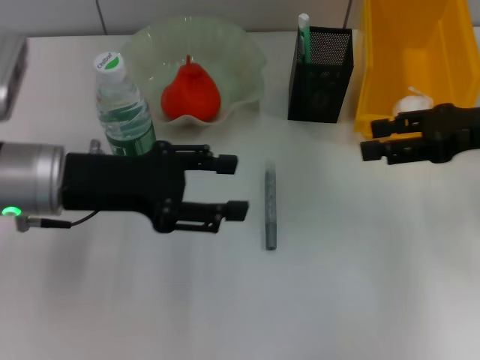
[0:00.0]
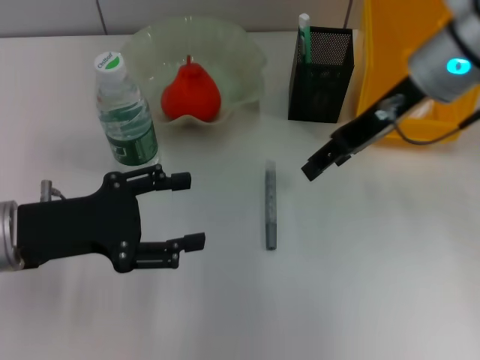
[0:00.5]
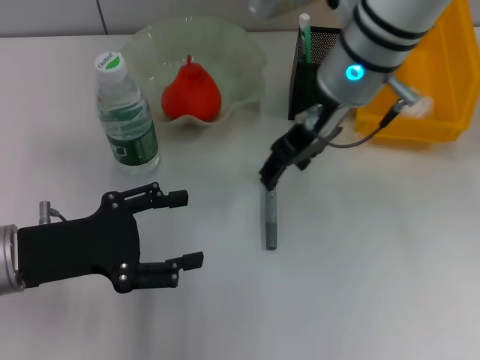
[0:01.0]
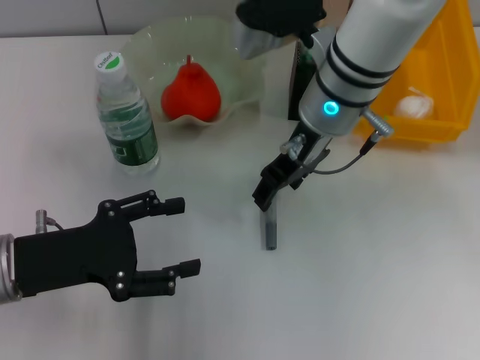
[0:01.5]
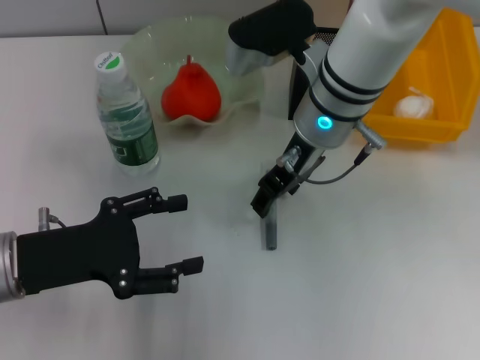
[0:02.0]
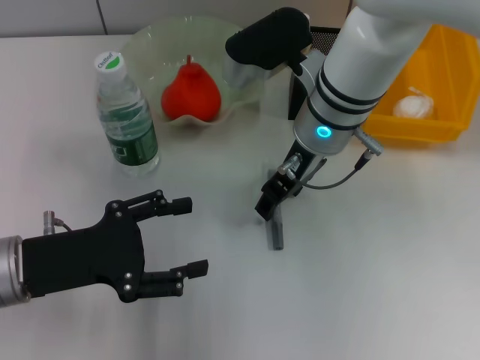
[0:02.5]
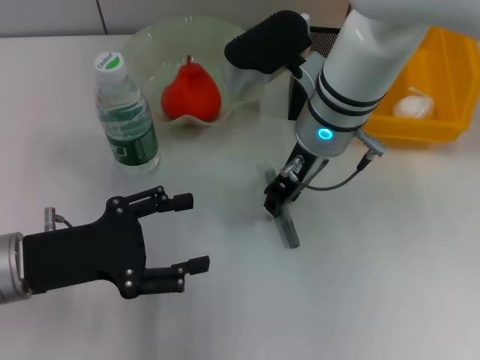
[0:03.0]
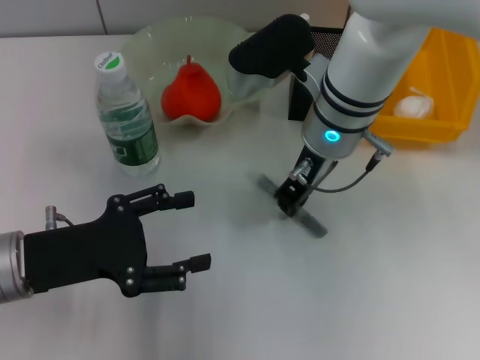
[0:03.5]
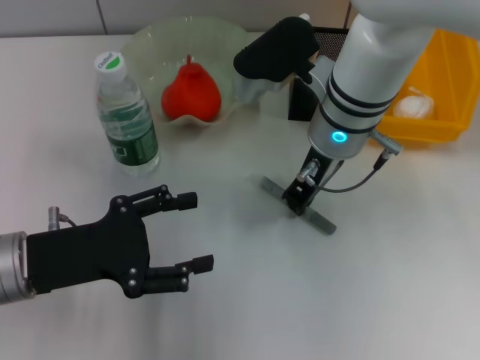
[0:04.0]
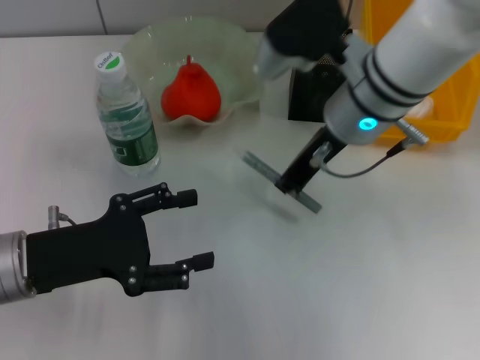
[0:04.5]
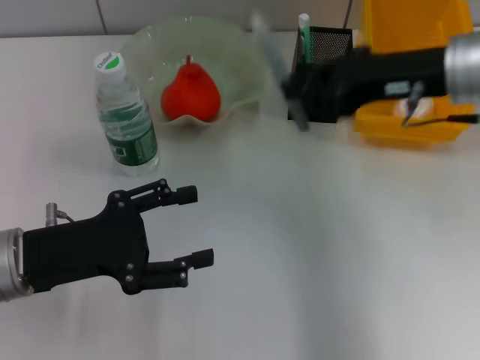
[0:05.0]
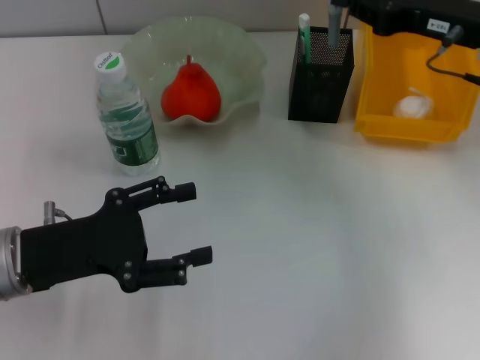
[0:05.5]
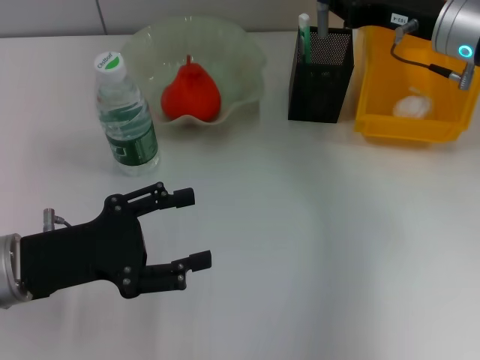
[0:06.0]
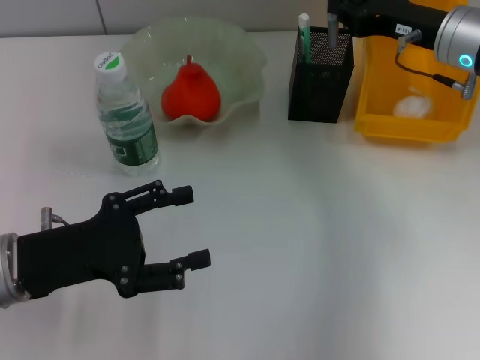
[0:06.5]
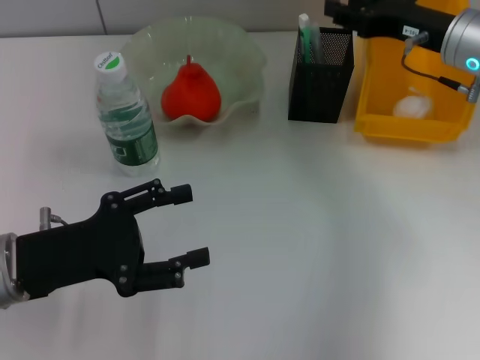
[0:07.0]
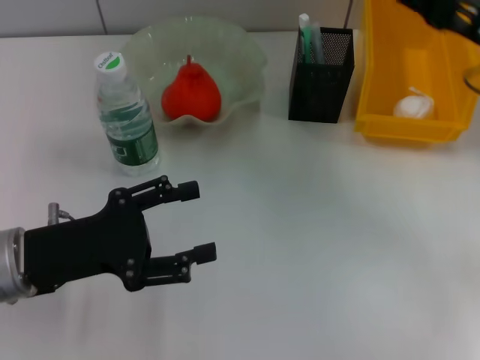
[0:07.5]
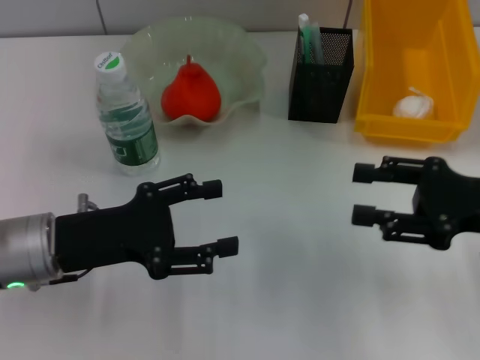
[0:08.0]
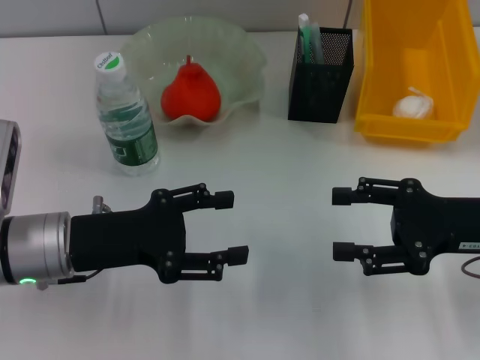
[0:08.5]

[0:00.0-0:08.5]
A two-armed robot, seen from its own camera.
Step, 0:00.0 to 0:03.5: Grab the gray glue with the right hand.
Step, 0:04.0 to 0:06.5: Place the gray glue into the pen holder with the right hand.
0:00.0 to 0:02.0: The right gripper is displaced to the left by some 25 cm. The left gripper heads backward and downward, covering about 10 cm, and opens.
0:02.0 to 0:04.0: The right gripper closes its fingers.
0:04.0 to 0:06.5: The right gripper is displaced to the right by about 15 cm.
0:06.5 to 0:08.5: The right gripper is displaced backward by approximately 15 cm, and opens.

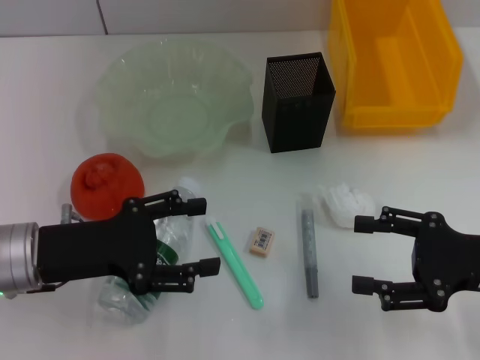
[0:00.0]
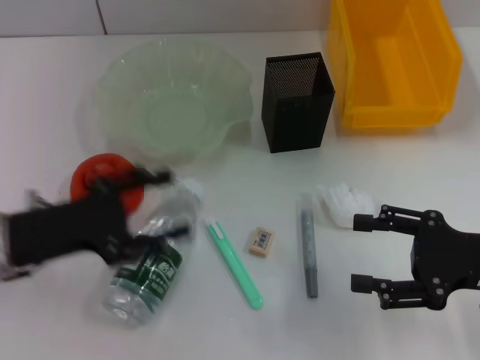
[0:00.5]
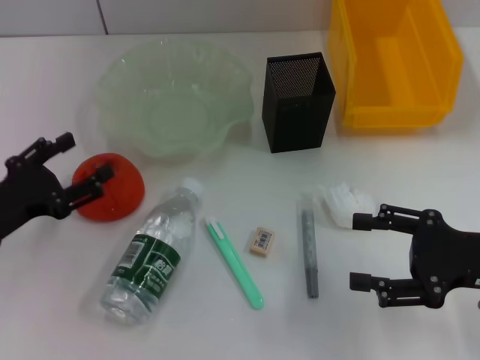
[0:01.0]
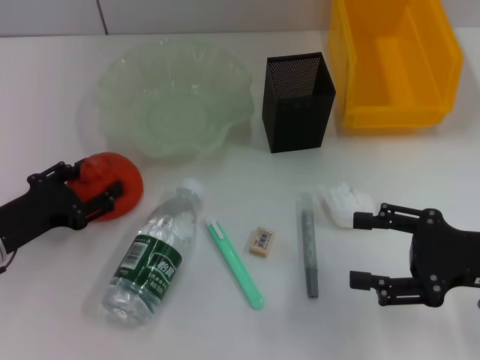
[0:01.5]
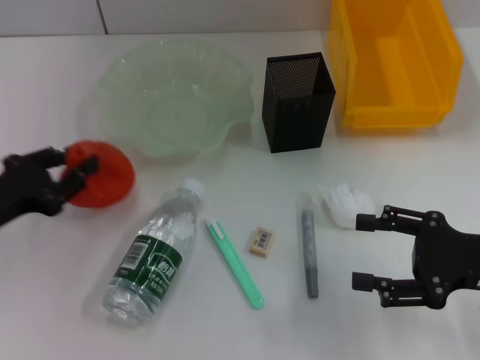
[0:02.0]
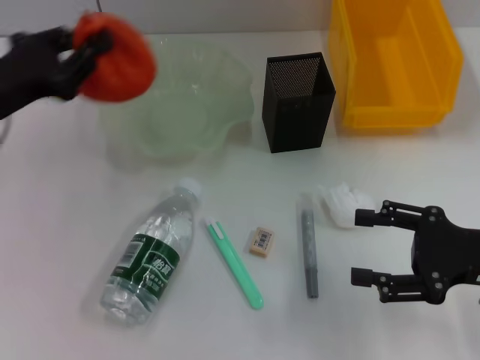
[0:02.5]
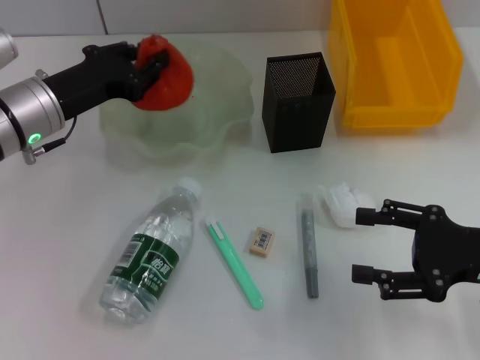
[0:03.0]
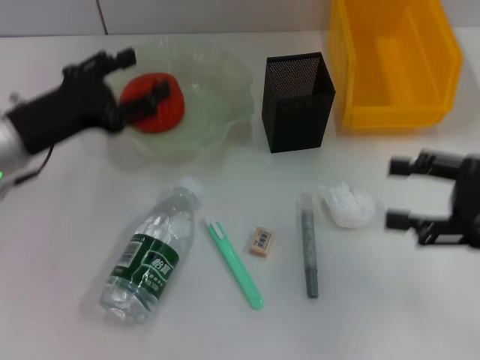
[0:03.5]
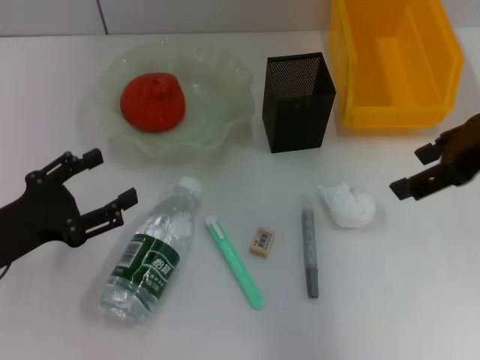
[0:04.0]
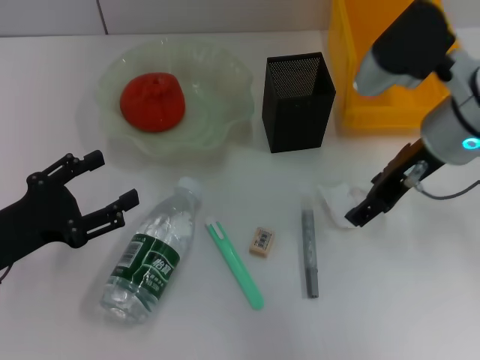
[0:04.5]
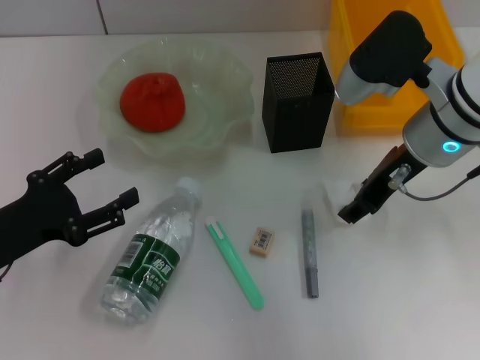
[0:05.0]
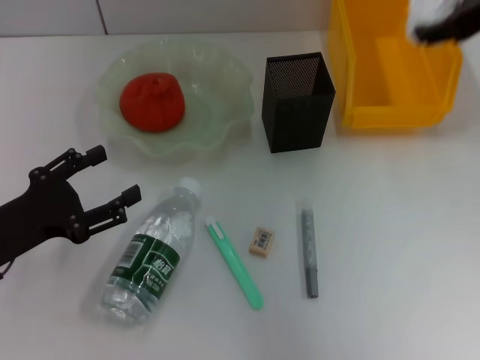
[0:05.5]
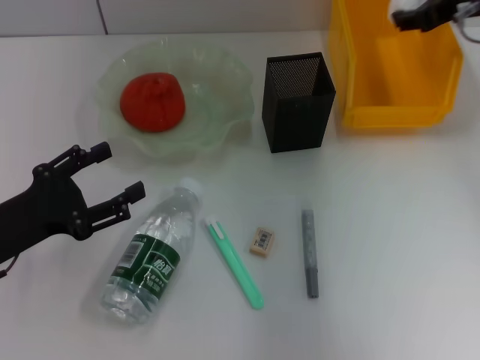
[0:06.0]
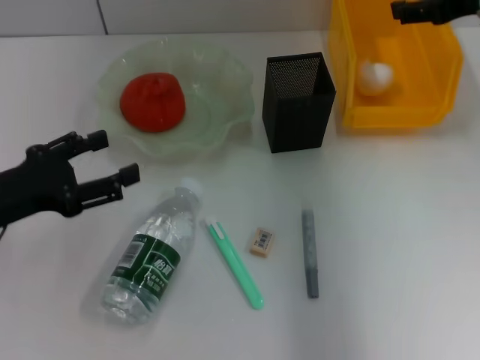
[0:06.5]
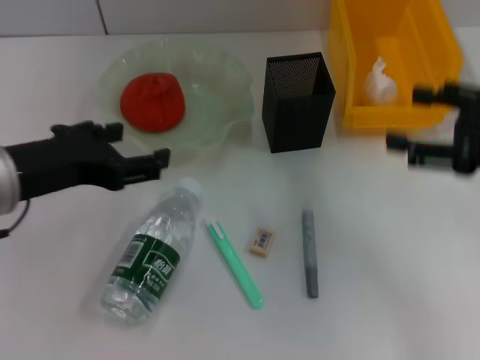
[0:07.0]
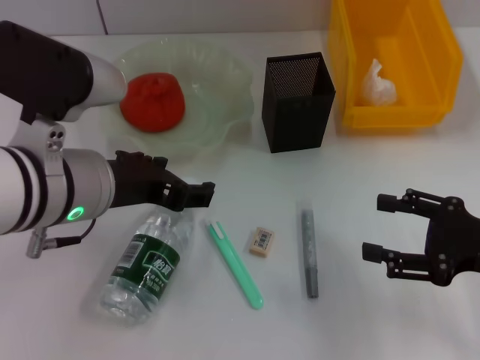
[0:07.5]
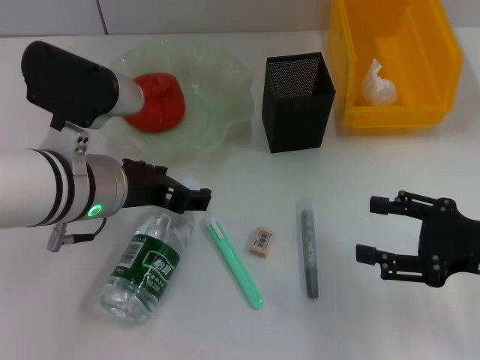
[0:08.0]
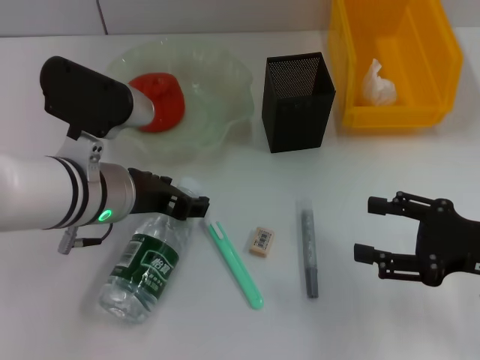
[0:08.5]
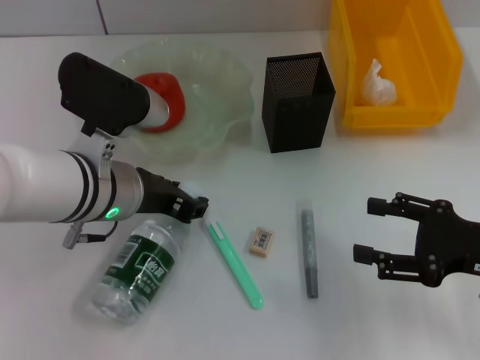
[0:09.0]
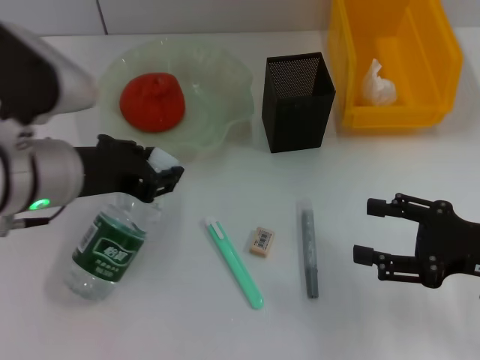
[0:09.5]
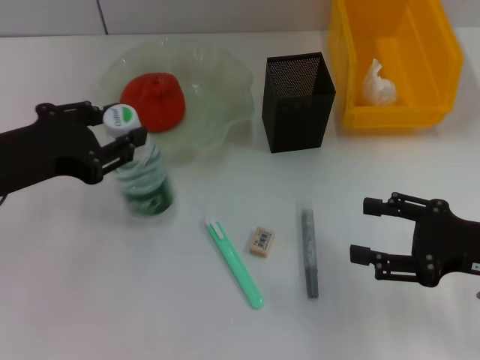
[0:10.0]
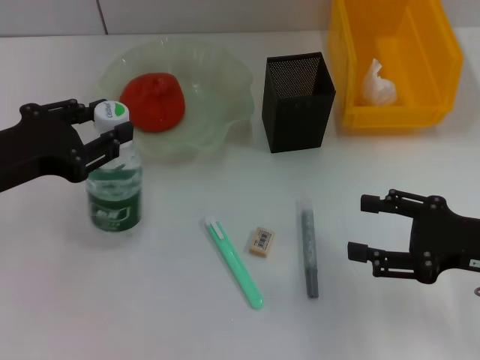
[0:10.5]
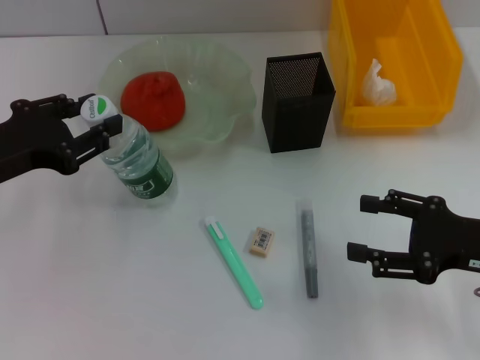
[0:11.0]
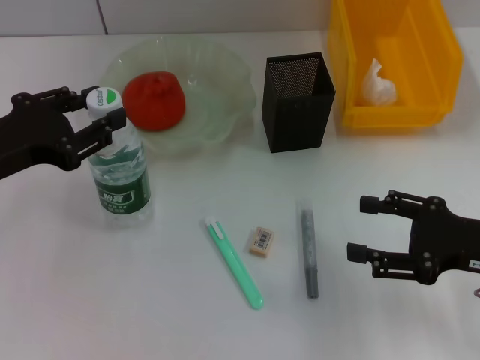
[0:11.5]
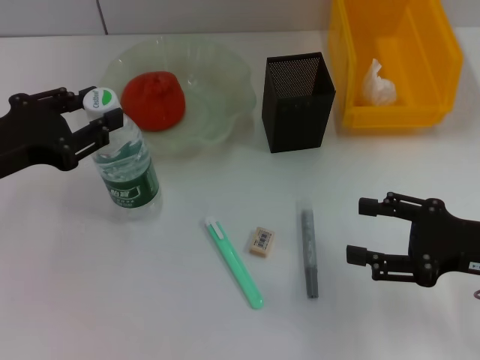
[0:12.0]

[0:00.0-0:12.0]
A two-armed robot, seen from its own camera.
Step, 0:00.0 to 0:01.5: Grab the orange with the left hand.
Step, 0:02.0 to 0:03.0: Place the orange into the fruit bowl with the left hand.
Step, 0:03.5 to 0:04.5: Grab the paper ball with the right hand.
Step, 0:05.0 to 0:06.0: Place the paper ball into the trash can with the right hand.
Step, 0:06.5 to 0:08.5: Grab the water bottle with the left hand.
0:00.0 to 0:02.0: The left gripper heads to the left, covering about 5 cm, and closes.
0:02.0 to 0:04.0: The right gripper is displaced upward and forward by some 20 cm. The left gripper moves approximately 10 cm forward and comes back, and opens.
0:04.0 to 0:06.0: The right gripper goes up and down, roughly 10 cm each way, reversing 2 times.
0:06.0 to 0:08.0: The right gripper heads backward and downward, covering about 25 cm, while the left gripper travels to the right and upward by approximately 15 cm.
0:08.0 to 0:10.0: The left gripper is displaced to the left by roughly 10 cm, and closes its fingers.
0:10.0 to 0:12.0: The grippers make only small movements.

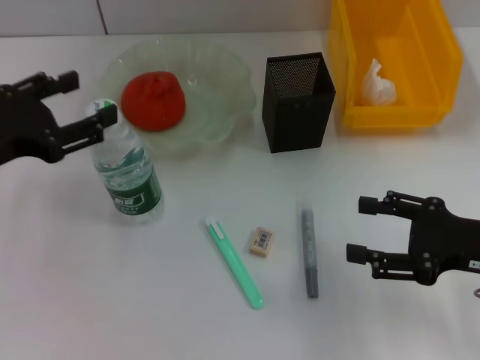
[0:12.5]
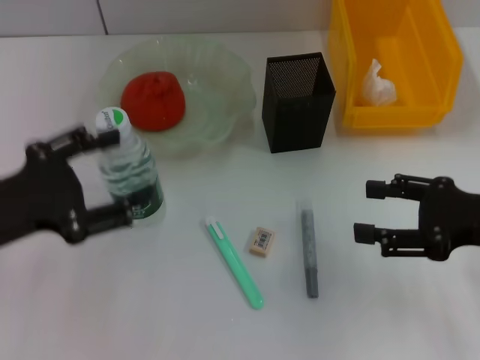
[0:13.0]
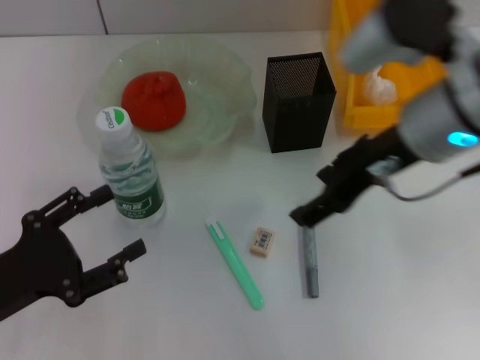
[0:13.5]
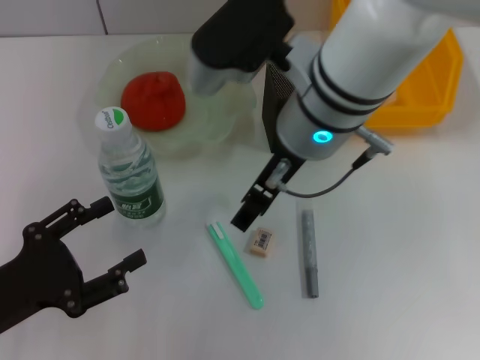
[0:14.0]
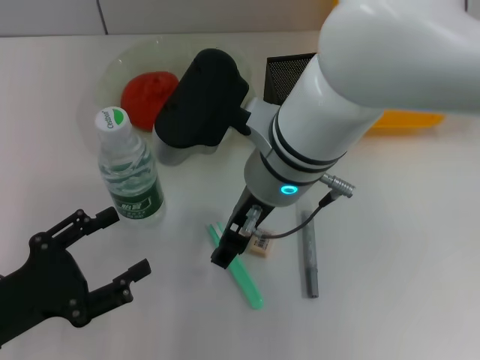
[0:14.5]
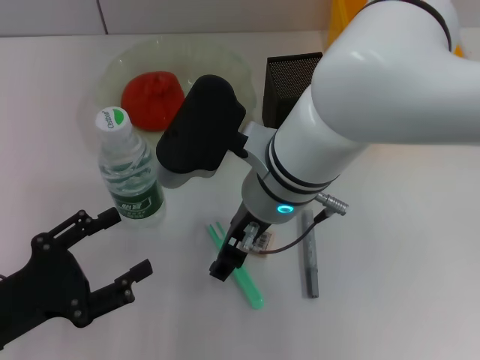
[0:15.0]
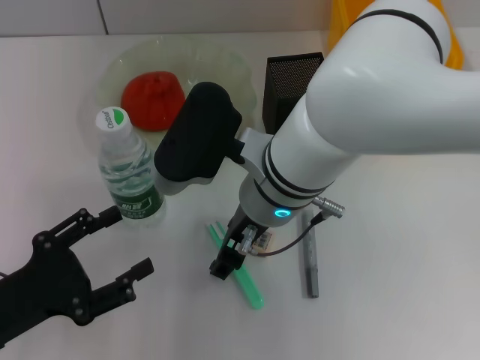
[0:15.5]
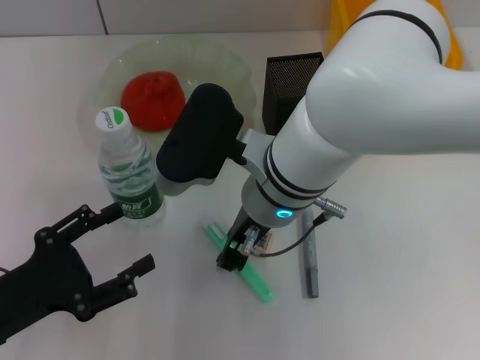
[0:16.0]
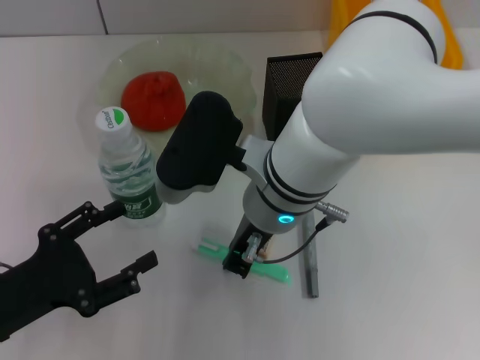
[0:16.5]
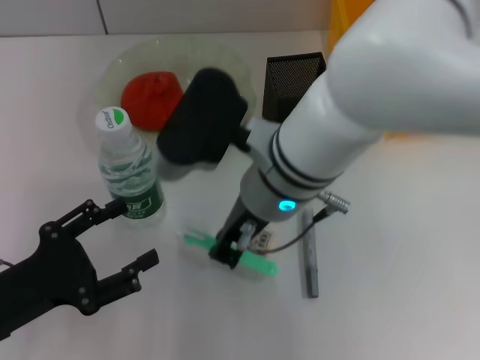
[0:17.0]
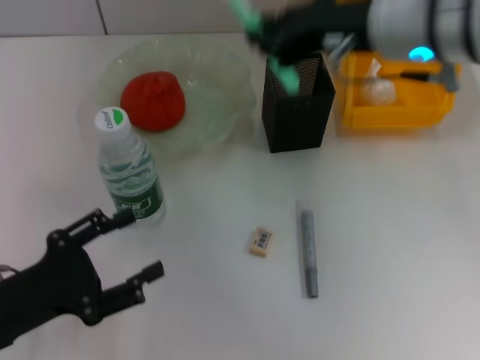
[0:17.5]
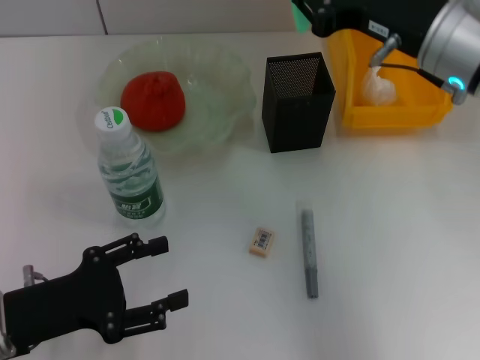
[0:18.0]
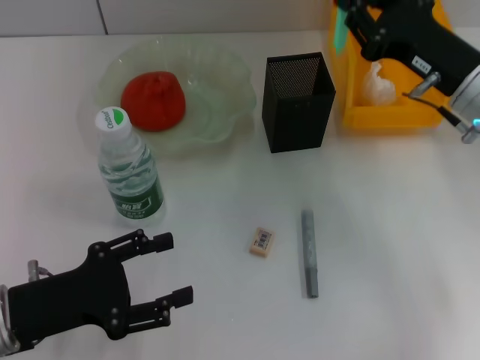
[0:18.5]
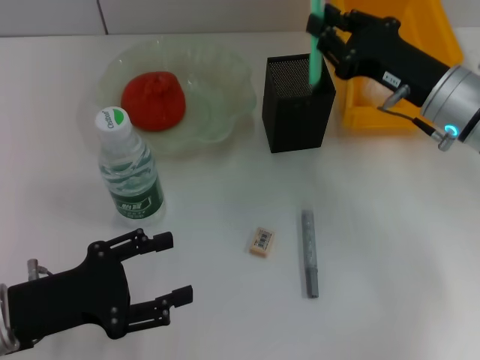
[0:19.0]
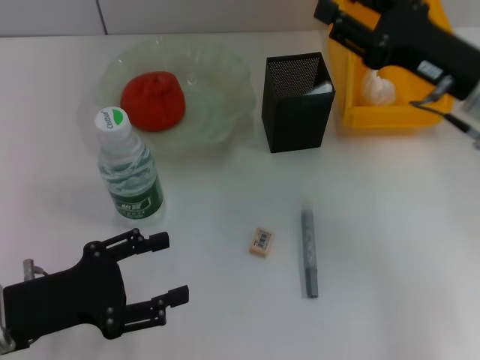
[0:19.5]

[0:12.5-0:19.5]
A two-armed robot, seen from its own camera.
Step, 0:13.0 to 0:16.5: Grab the blue utility knife with the right hand.
Step, 0:17.0 to 0:19.0: Place the blue utility knife into the pen holder with the right hand.
0:12.5 to 0:14.5: The left gripper moves downward and backward, about 15 cm, while the right gripper goes approximately 25 cm to the left.
0:14.5 to 0:16.0: The right gripper closes its fingers.
0:16.0 to 0:17.5: The right gripper moves upward and to the right, about 15 cm, and closes.
0:17.5 to 0:19.5: The right gripper heads downward and to the right, covering about 15 cm, and opens.
